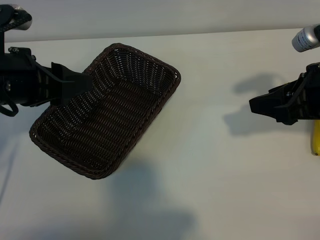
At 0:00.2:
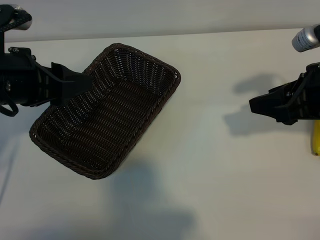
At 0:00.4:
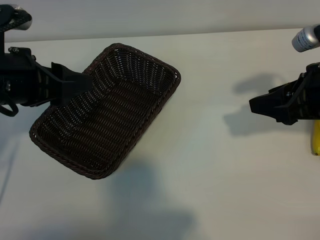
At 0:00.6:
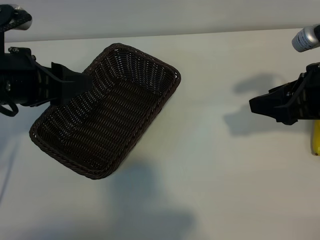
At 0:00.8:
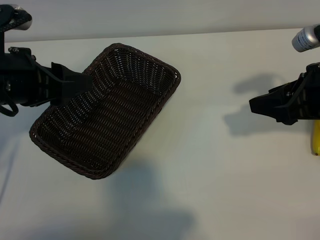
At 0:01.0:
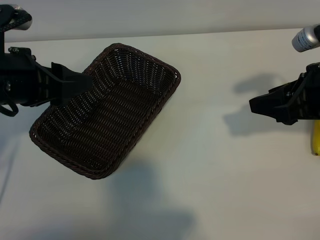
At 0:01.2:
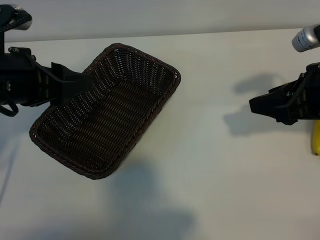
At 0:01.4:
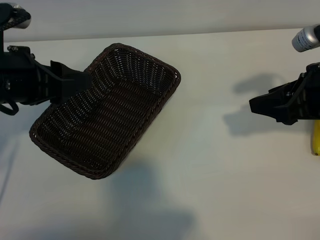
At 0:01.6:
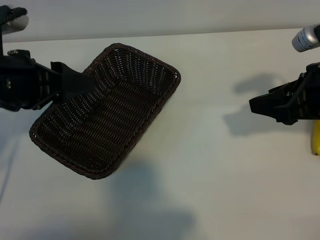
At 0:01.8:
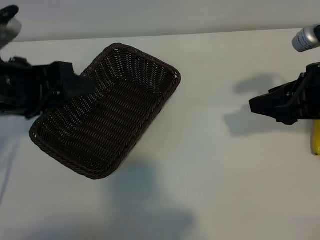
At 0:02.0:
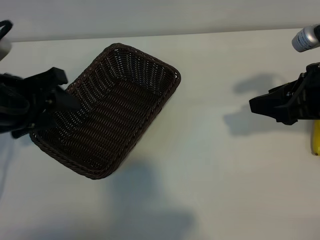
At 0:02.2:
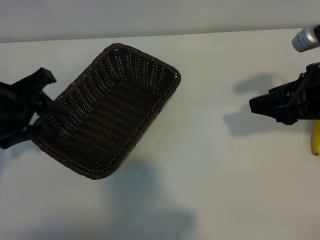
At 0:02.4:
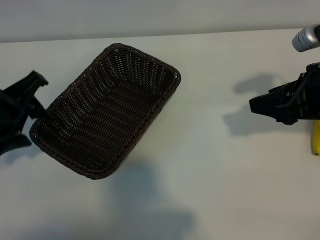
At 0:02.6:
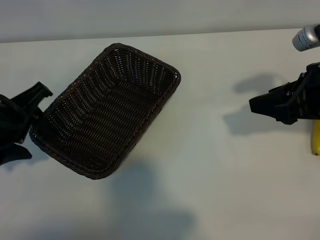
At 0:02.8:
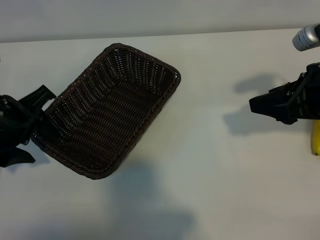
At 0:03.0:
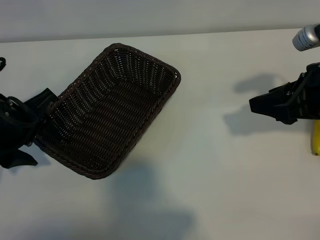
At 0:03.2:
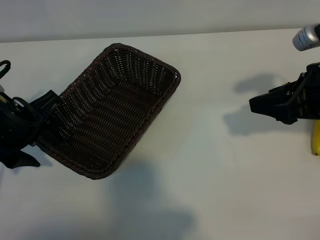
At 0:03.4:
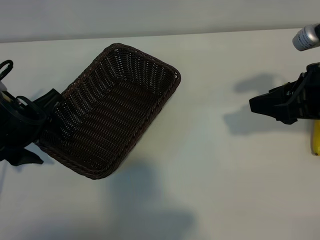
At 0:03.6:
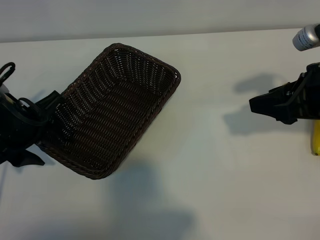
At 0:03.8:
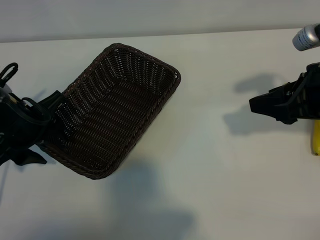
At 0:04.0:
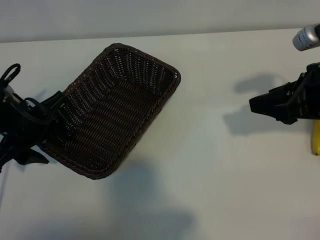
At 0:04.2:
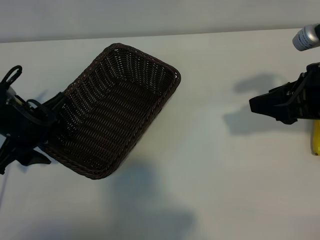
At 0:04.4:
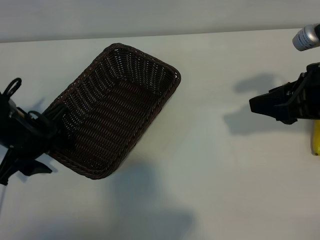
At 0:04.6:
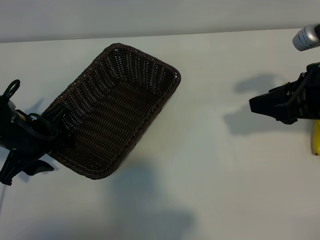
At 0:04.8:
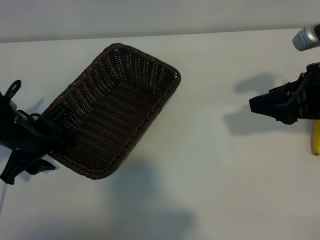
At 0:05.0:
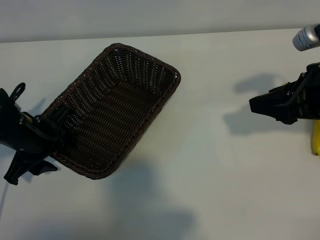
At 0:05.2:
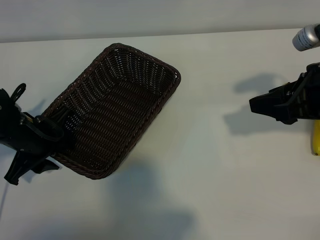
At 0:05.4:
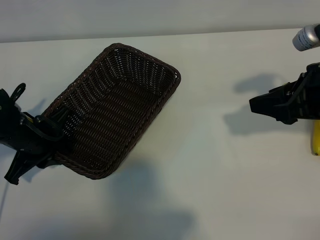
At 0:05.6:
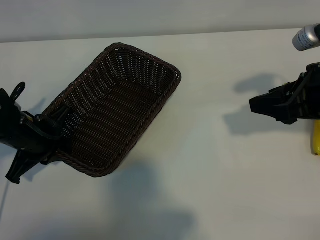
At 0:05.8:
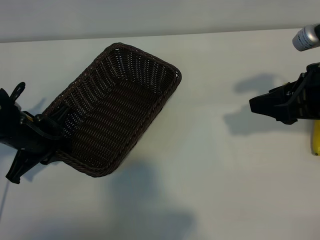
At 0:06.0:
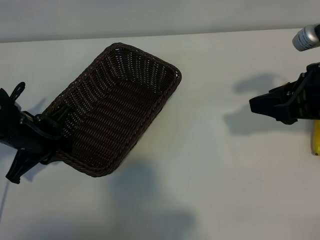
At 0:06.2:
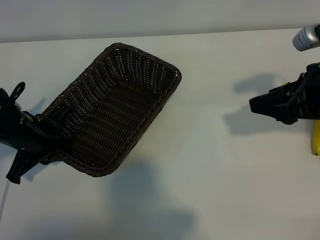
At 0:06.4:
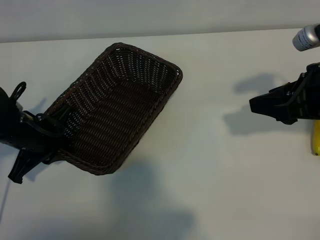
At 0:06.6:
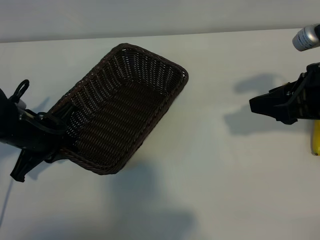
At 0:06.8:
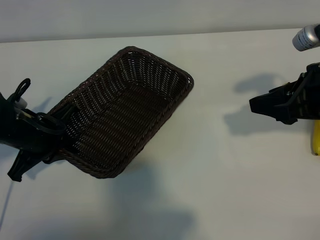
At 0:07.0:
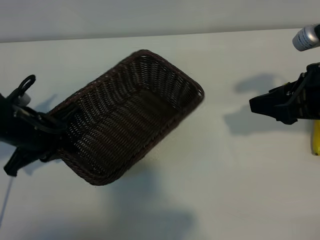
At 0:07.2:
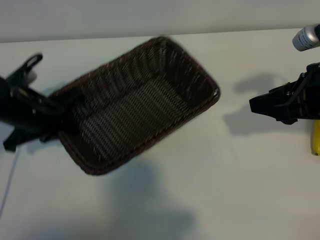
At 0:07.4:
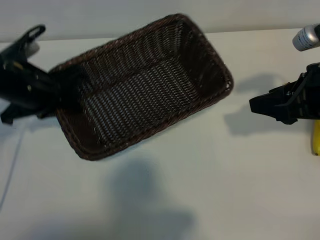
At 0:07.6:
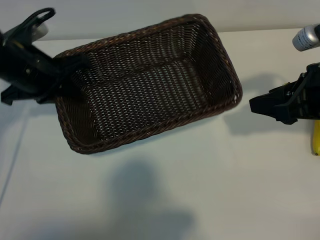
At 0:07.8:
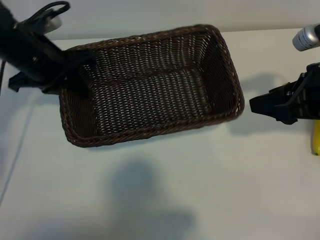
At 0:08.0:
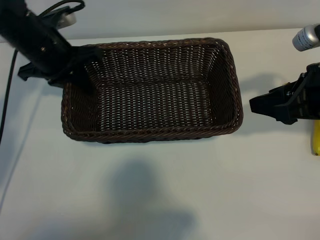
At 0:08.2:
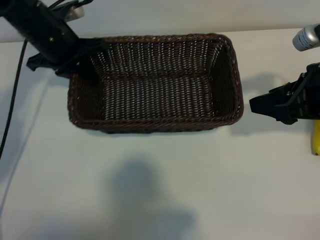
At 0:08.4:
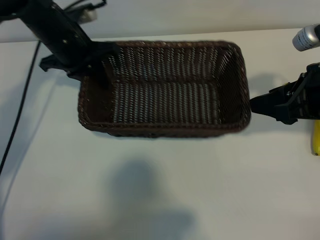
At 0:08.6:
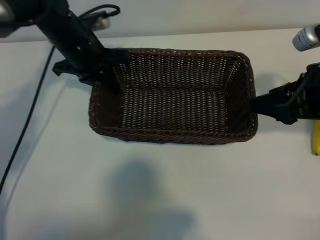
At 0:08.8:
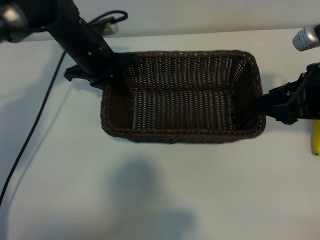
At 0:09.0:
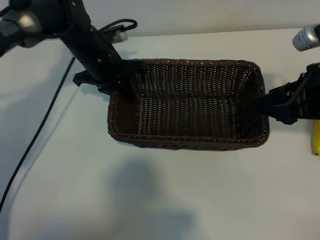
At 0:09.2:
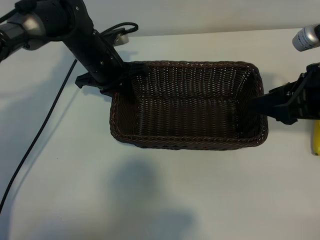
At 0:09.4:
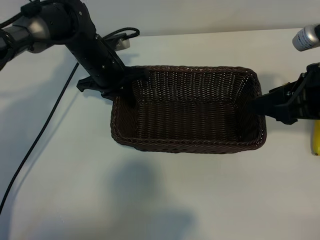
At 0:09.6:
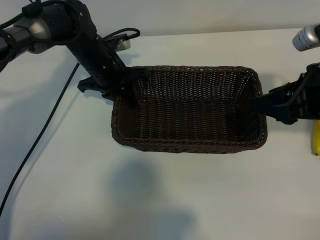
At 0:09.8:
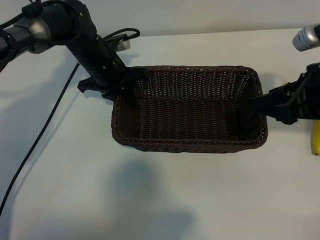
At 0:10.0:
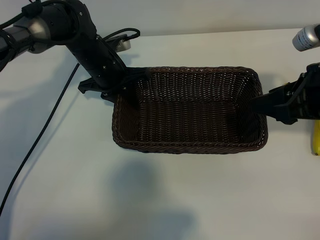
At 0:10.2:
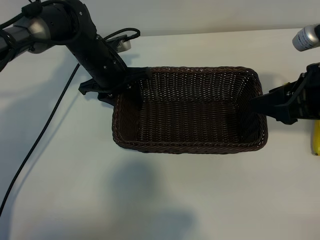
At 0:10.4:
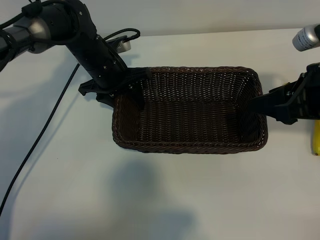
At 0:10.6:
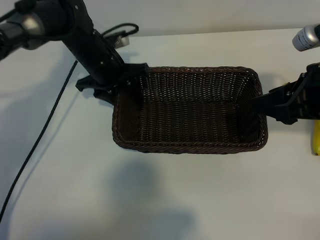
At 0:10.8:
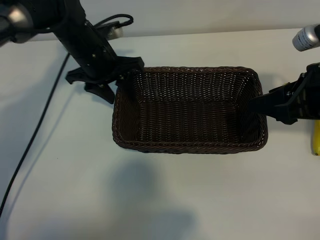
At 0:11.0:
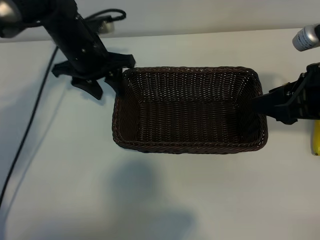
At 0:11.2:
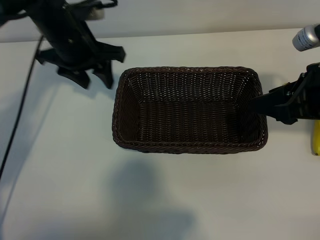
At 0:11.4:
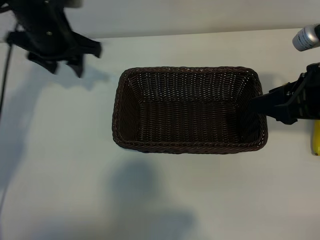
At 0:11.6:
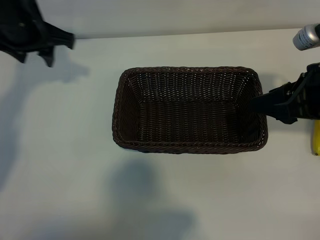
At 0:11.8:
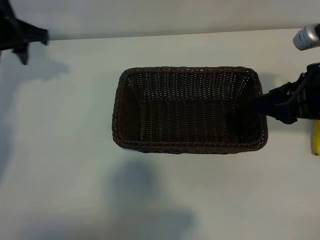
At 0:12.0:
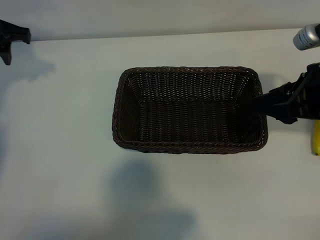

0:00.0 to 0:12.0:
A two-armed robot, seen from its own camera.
Task of the whole recording: pick up the banana and put it into the basket.
Step, 0:01.4 to 0:05.6: Grasp the basket with the left gripper.
Step, 0:06.0 to 0:10.8: Place the basket in the center of the table with the left gripper.

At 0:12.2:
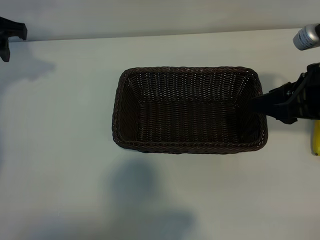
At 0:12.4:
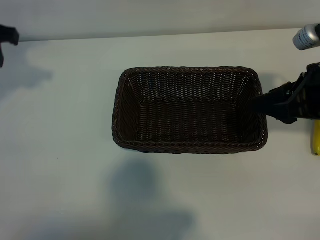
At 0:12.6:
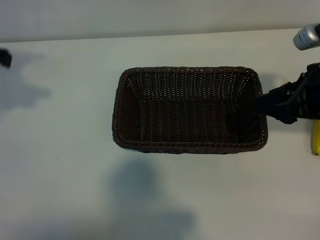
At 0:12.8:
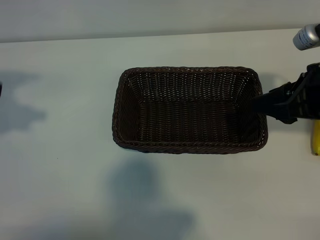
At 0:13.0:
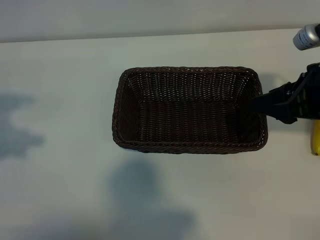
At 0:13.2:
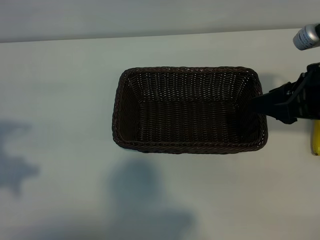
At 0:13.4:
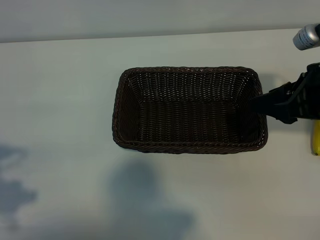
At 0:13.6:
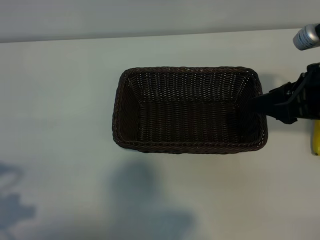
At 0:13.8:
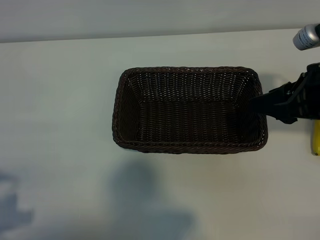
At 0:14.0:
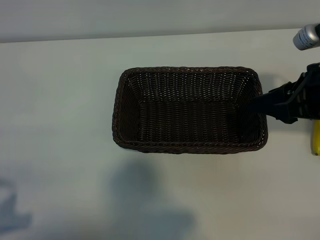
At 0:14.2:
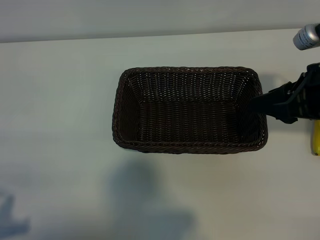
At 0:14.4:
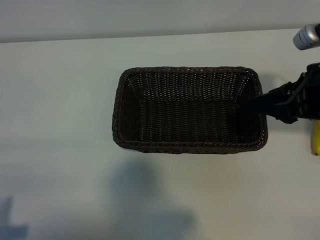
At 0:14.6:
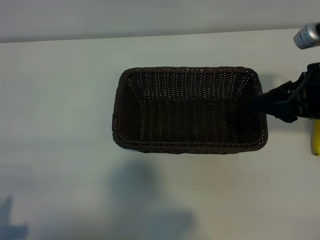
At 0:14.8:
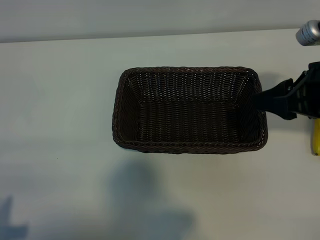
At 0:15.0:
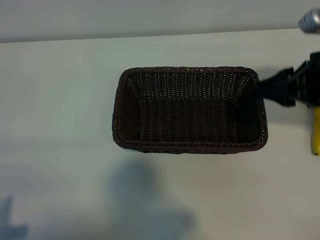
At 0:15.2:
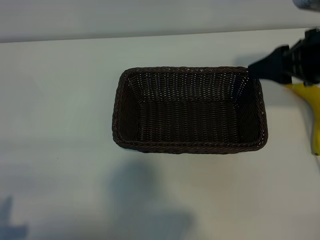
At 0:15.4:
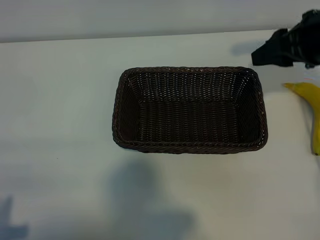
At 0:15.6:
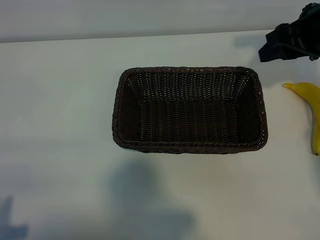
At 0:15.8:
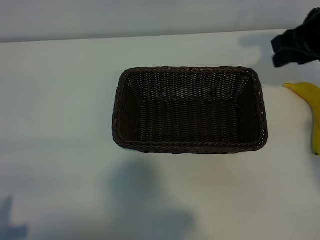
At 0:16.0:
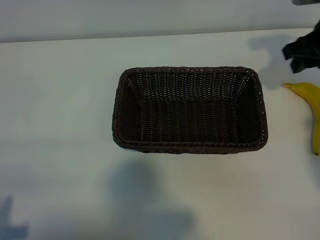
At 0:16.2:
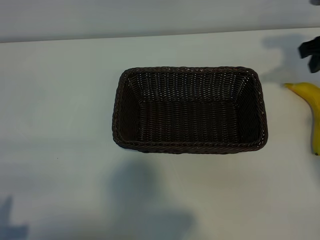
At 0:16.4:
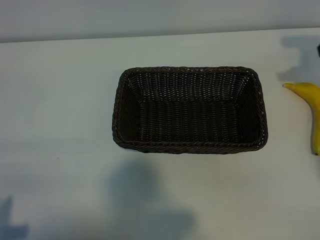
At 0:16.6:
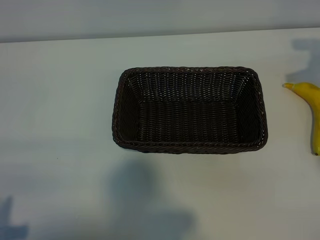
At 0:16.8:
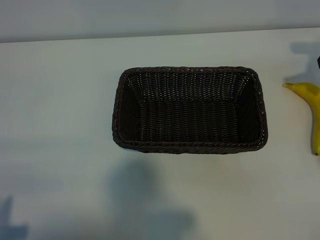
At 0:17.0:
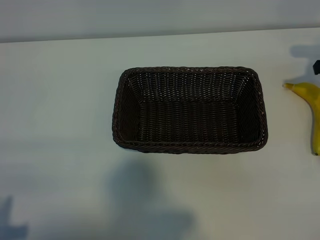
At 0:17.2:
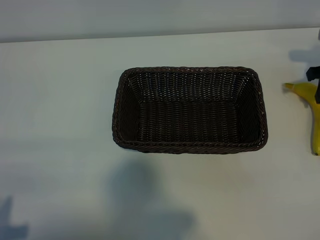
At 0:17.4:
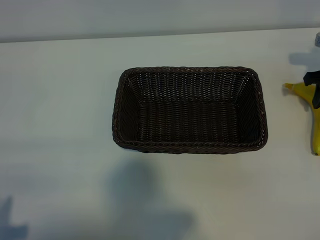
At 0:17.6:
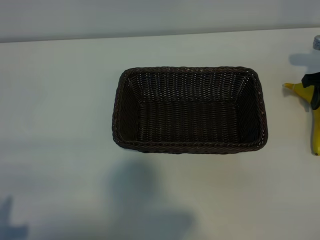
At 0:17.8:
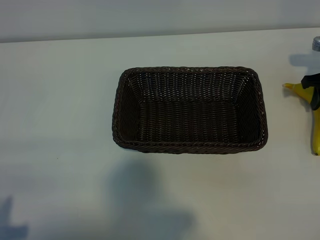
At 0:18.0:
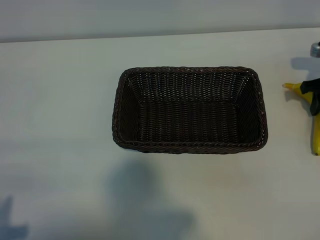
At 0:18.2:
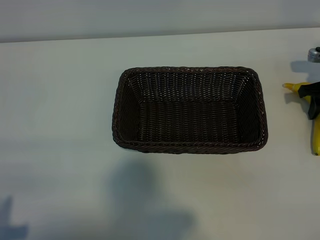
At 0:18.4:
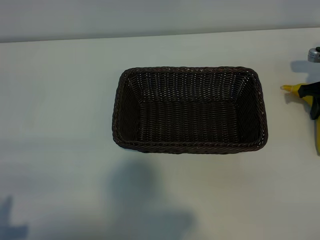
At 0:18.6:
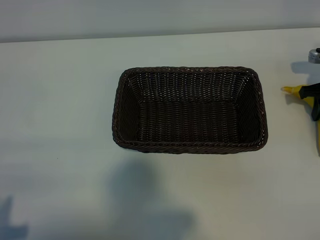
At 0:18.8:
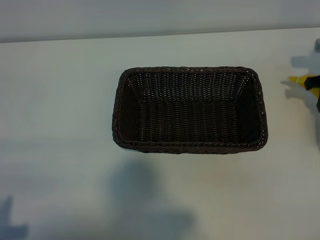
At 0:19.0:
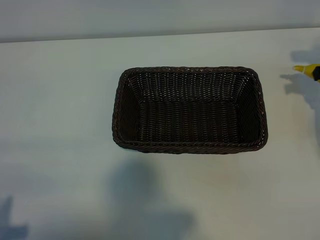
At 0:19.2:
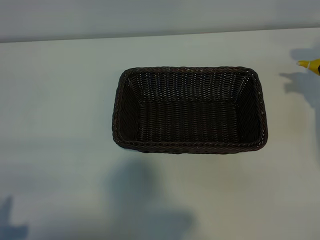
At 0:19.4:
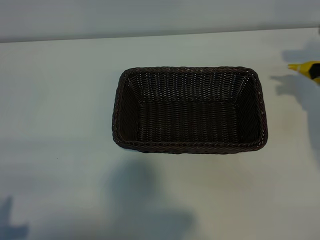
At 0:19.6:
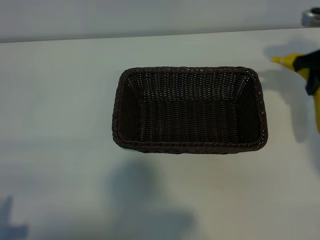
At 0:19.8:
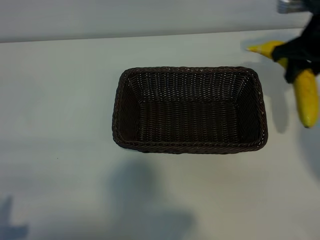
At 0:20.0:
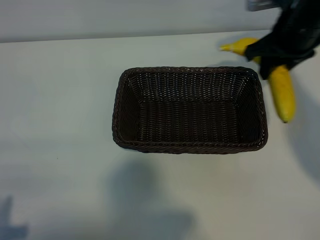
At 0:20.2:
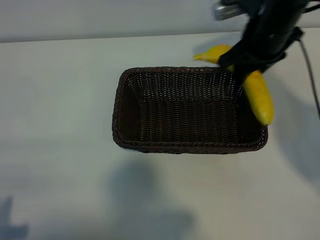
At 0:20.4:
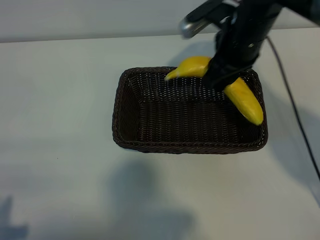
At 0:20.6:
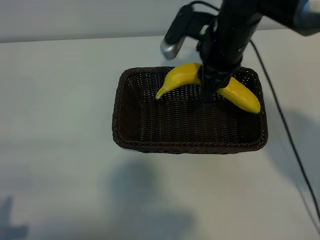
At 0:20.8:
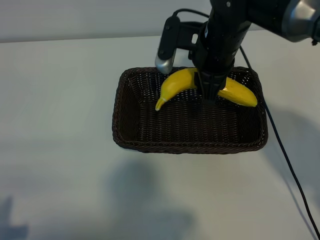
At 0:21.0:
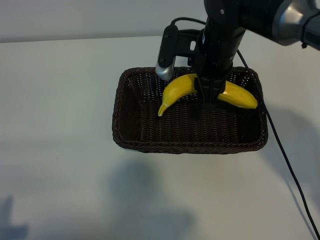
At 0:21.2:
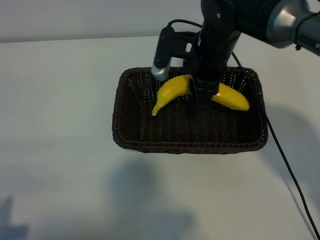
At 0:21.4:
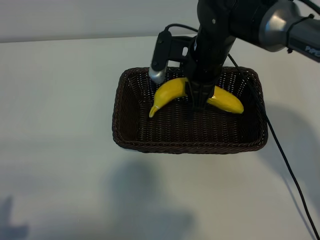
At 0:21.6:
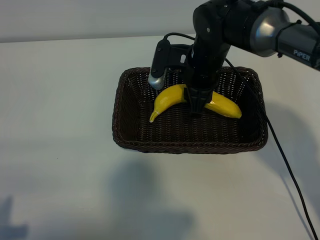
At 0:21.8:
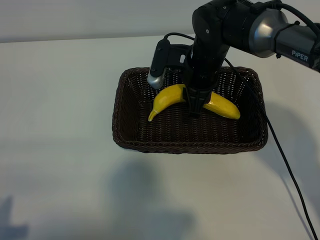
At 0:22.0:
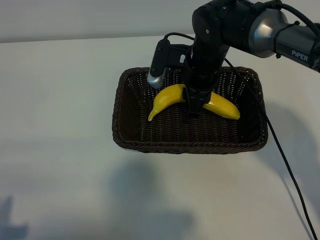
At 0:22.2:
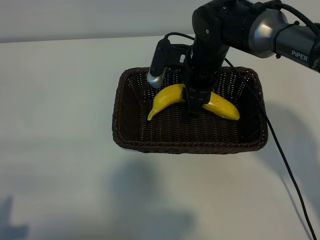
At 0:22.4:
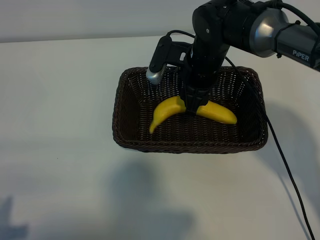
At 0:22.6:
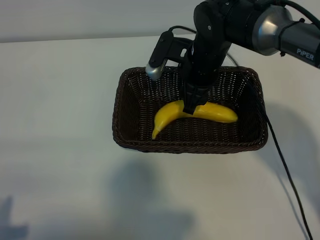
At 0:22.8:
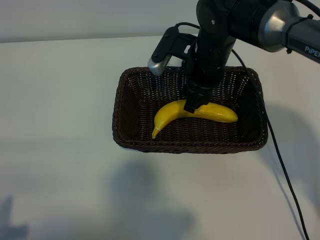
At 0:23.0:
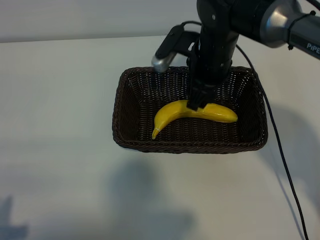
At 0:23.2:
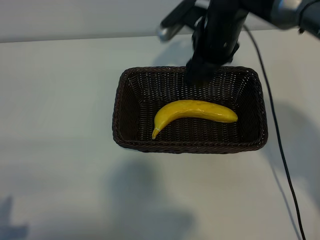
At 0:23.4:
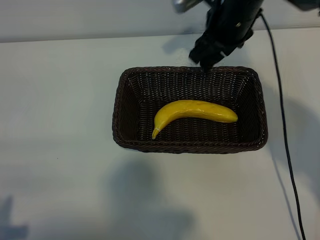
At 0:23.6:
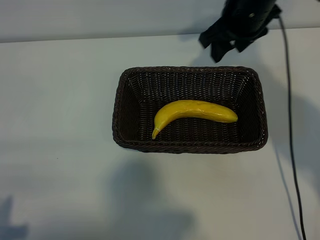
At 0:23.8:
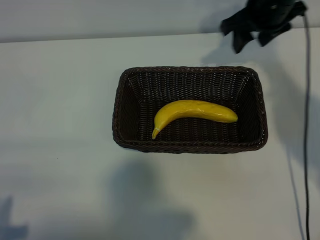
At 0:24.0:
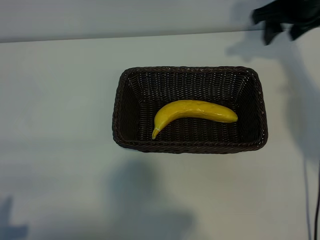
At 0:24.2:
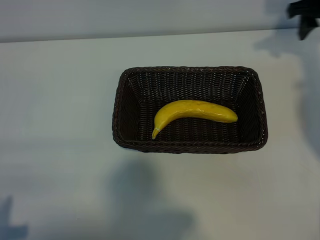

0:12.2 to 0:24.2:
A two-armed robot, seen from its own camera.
Task of the whole recording: pick up the banana and put it into the basket.
Step, 0:12.2 to 0:19.4: Grasp the banana with right gripper.
Step, 0:19.6 to 0:23.0: Place the banana in the basket with right gripper.
